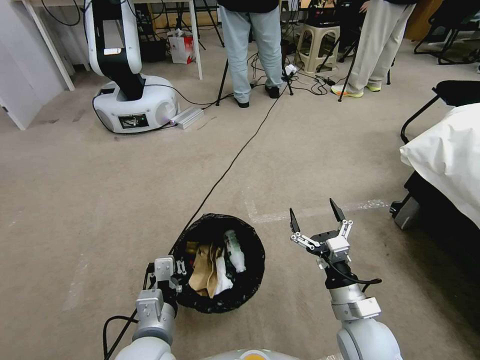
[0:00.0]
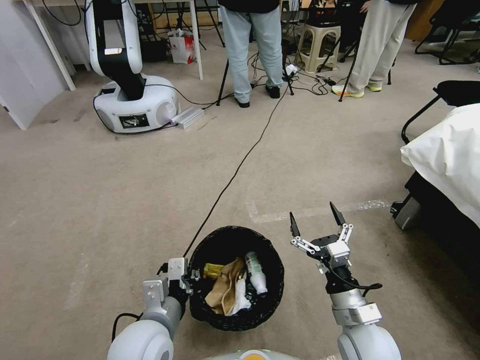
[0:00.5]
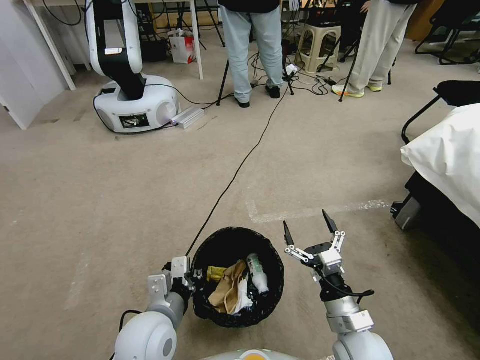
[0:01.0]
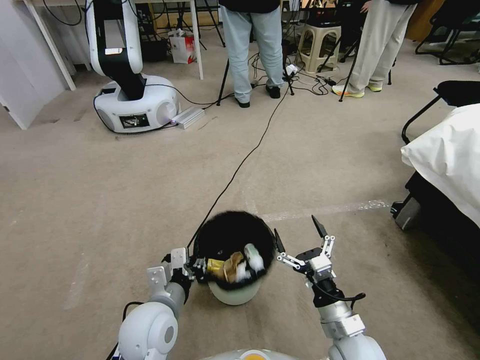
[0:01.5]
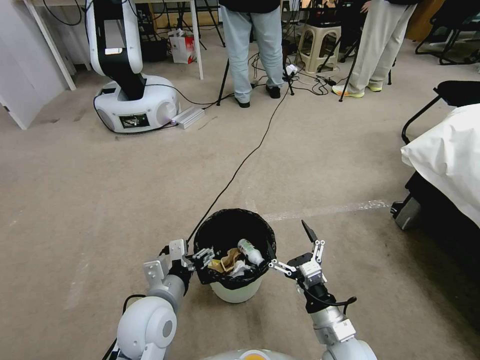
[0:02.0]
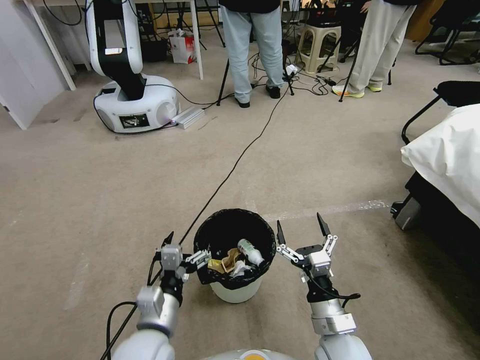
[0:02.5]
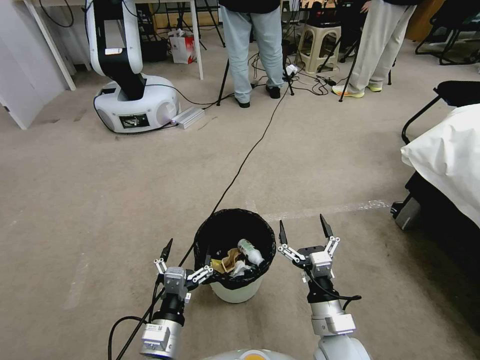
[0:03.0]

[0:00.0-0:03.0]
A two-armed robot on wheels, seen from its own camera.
Task of the whole recording: Pick up the trash bin, then pick up the garbage from the floor and place it into the trash bin.
0:00.0 to 0:01.5: The left gripper changes place by approximately 5 cm.
0:01.5 to 0:03.0: The left gripper goes some 10 cm backward and downward, and opens.

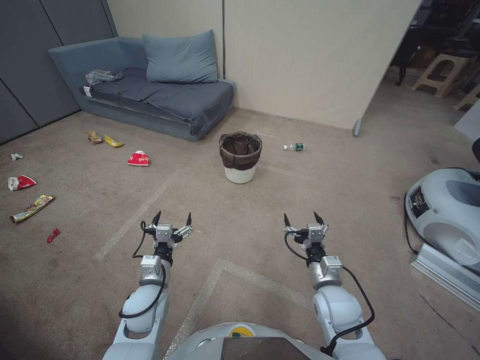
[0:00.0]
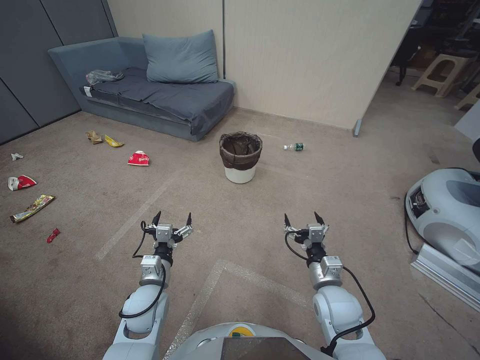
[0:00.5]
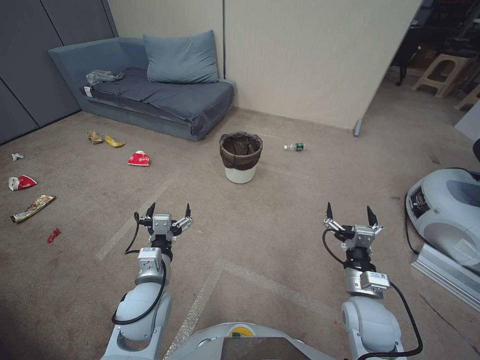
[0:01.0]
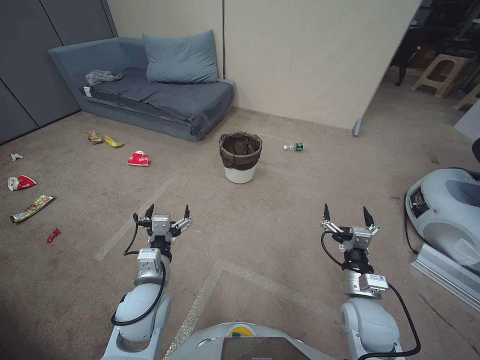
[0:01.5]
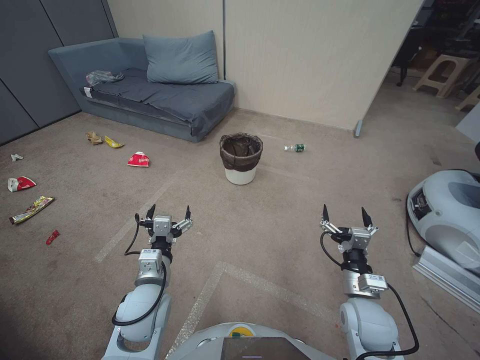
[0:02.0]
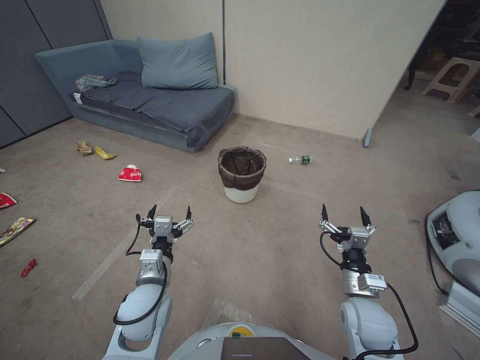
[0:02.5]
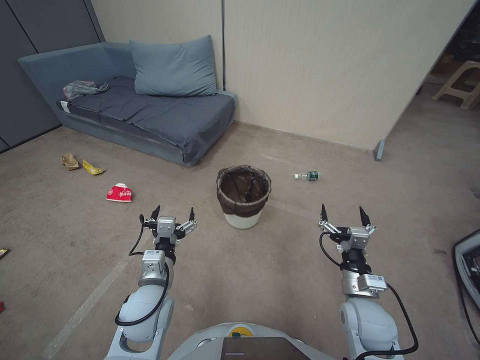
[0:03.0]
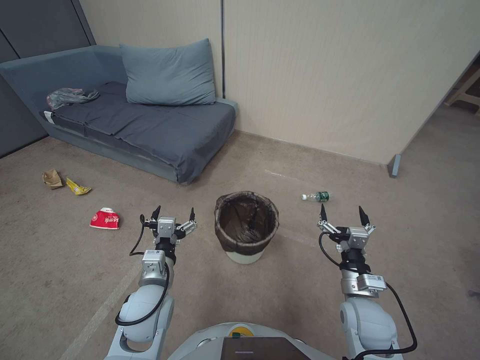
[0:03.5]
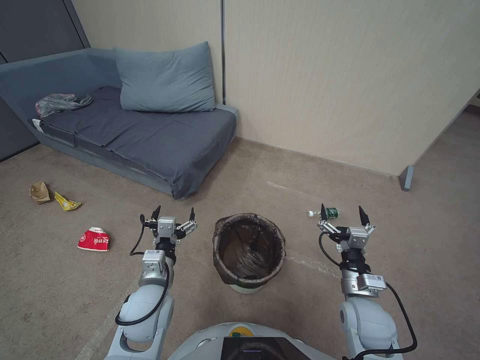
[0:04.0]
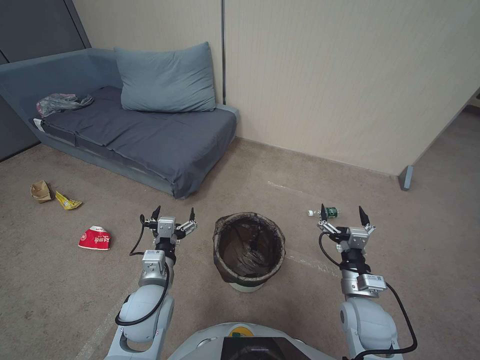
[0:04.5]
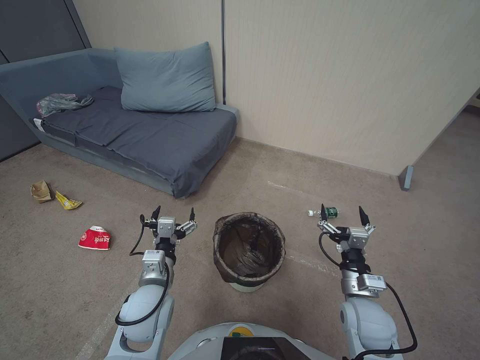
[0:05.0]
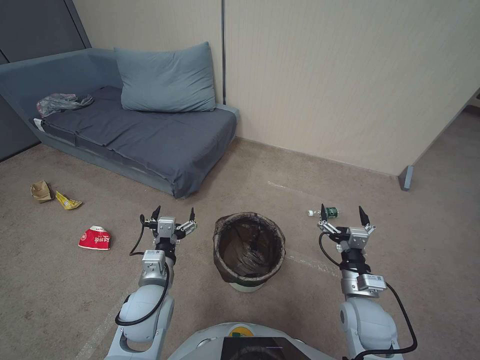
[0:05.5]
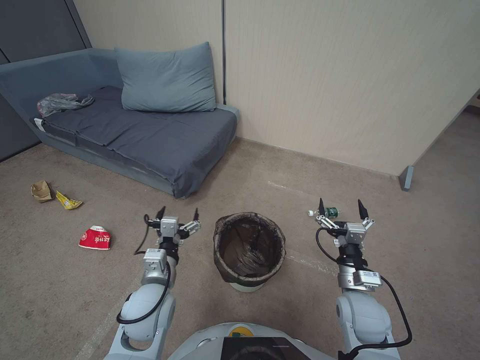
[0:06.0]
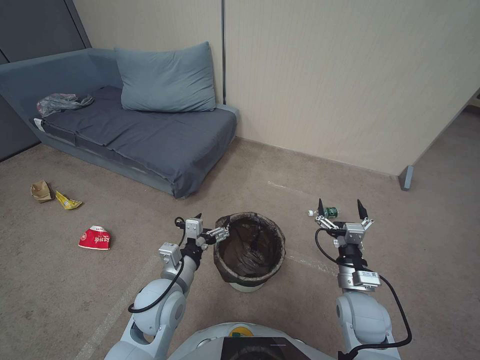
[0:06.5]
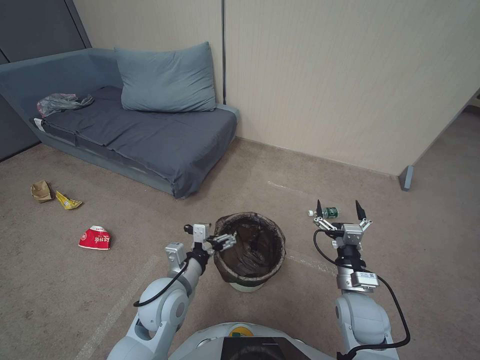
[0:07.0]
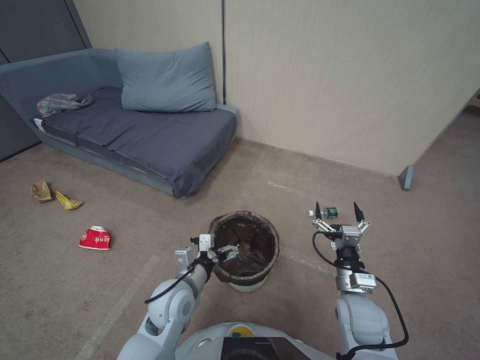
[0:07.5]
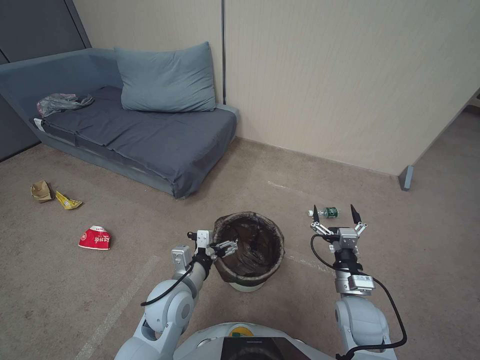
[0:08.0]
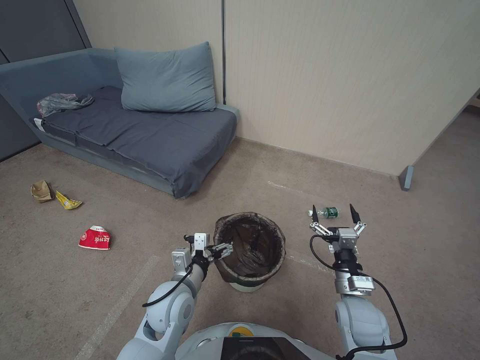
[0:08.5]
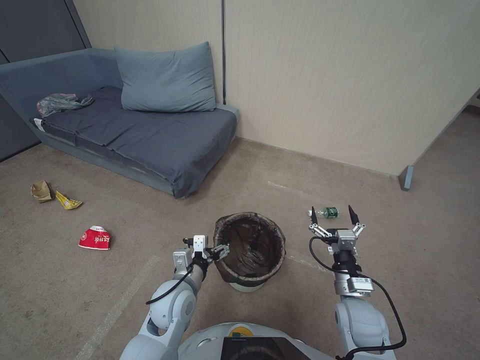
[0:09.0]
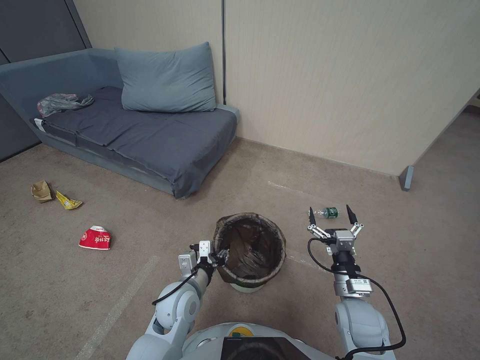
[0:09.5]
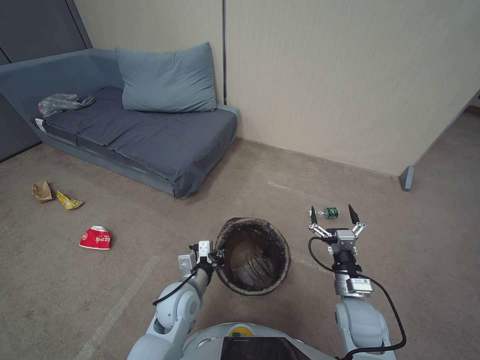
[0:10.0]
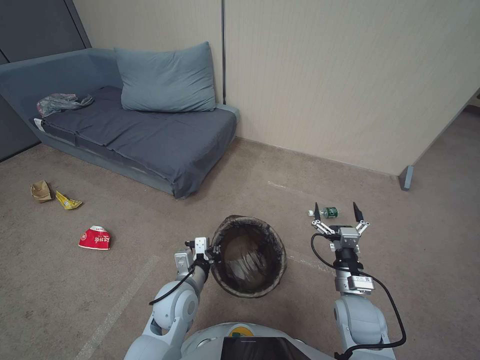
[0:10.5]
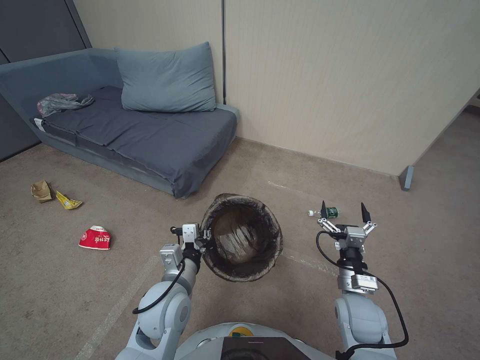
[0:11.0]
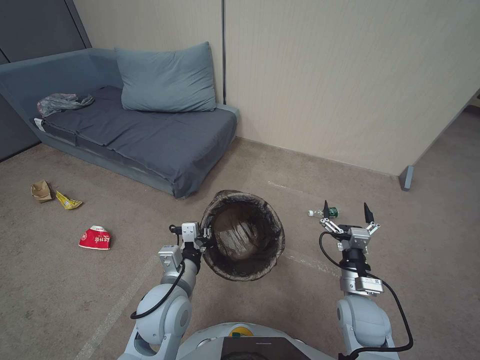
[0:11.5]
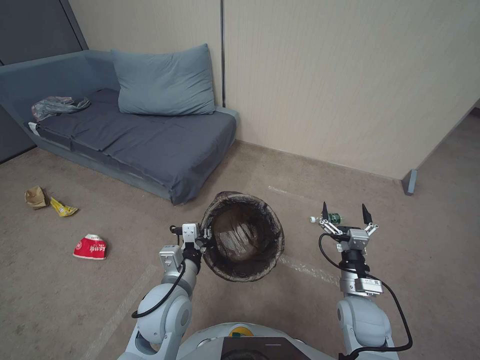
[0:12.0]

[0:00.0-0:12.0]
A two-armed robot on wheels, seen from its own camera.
Task of the whole recording: Pick up the trash bin, then pick up the garbage from the floor and place it into the trash bin.
0:04.0 to 0:06.0: The two grippers keep their place.
0:06.0 to 0:08.0: The left gripper ends up approximately 5 cm from where it was.
0:08.0 to 0:10.0: The left gripper closes its fingers.
0:10.0 to 0:12.0: The left gripper goes roughly 10 cm upward.

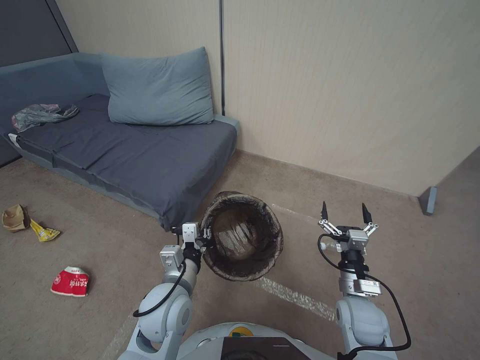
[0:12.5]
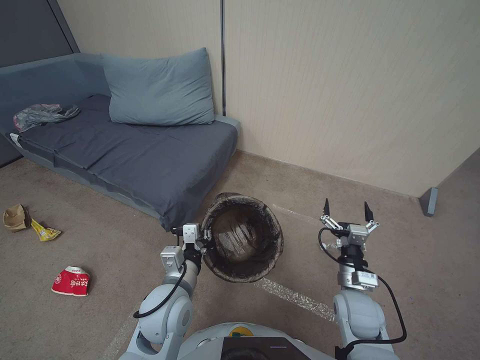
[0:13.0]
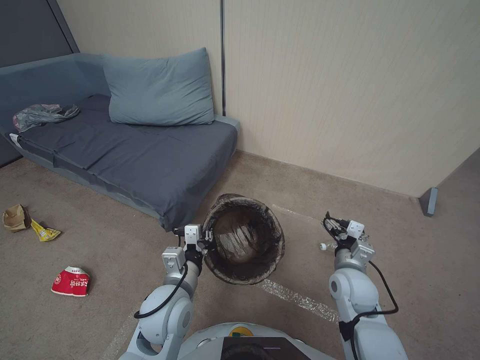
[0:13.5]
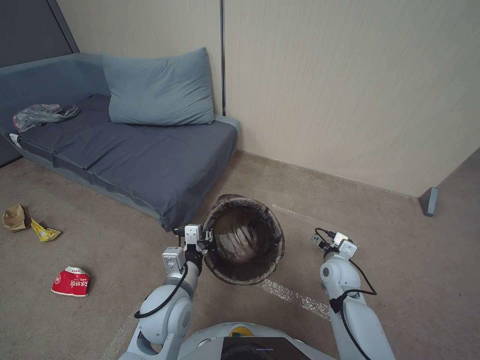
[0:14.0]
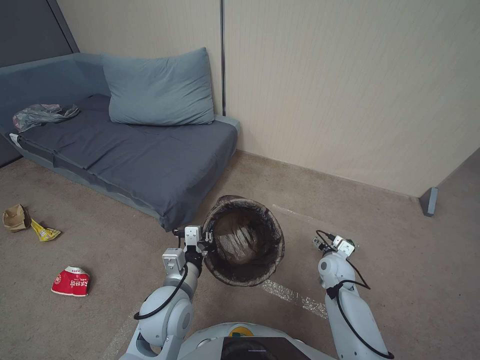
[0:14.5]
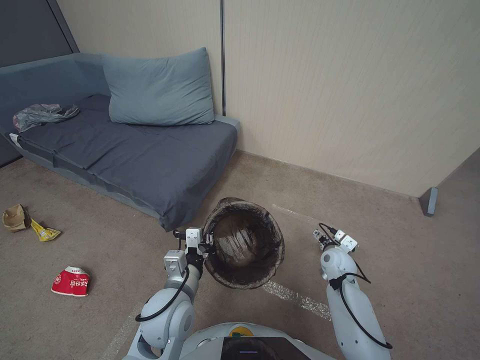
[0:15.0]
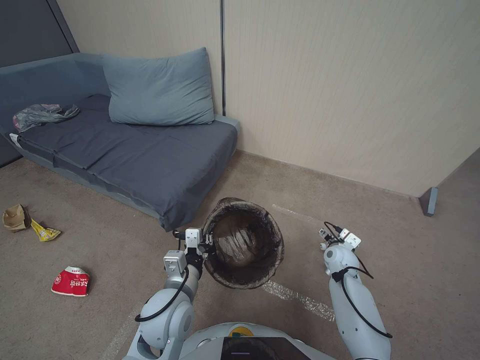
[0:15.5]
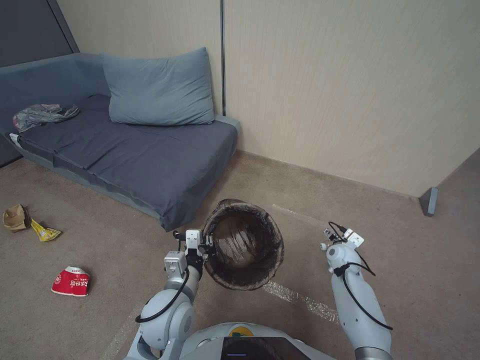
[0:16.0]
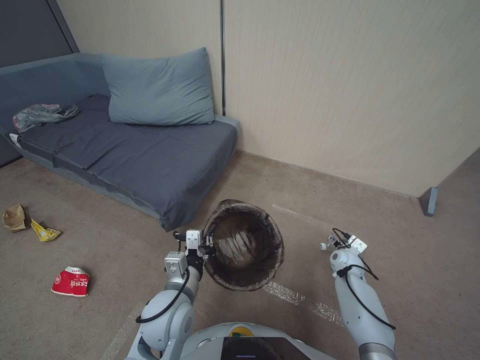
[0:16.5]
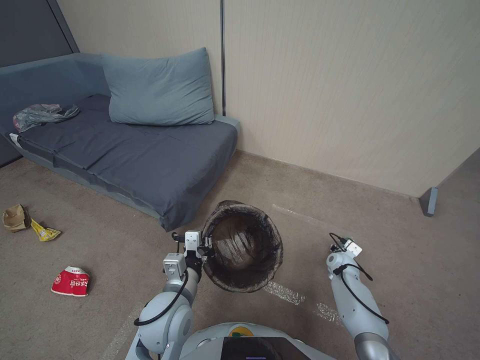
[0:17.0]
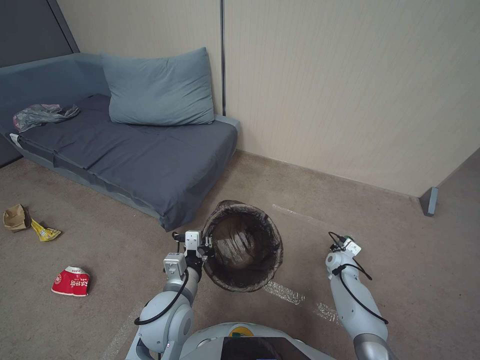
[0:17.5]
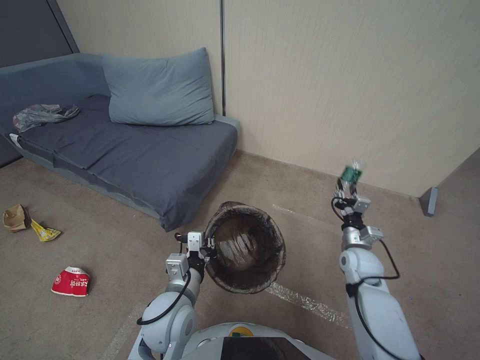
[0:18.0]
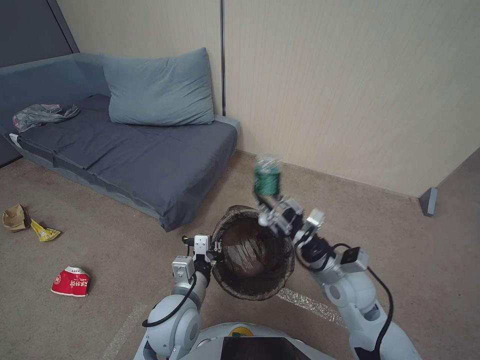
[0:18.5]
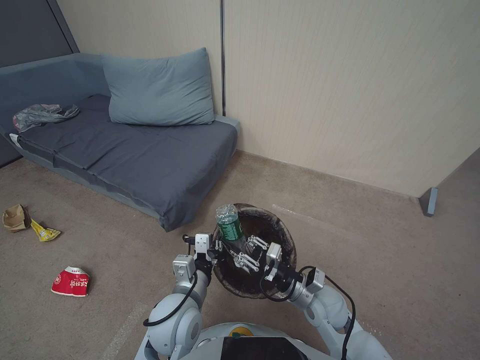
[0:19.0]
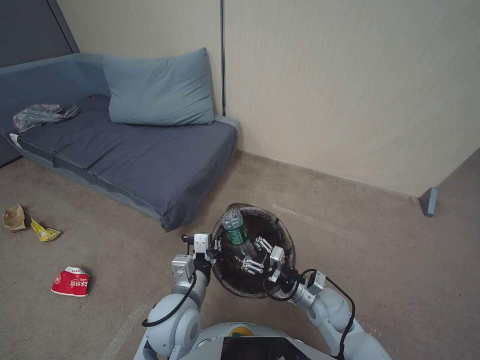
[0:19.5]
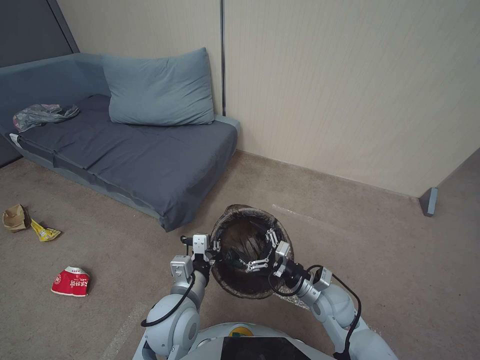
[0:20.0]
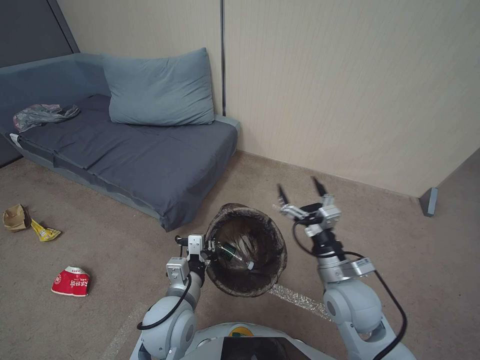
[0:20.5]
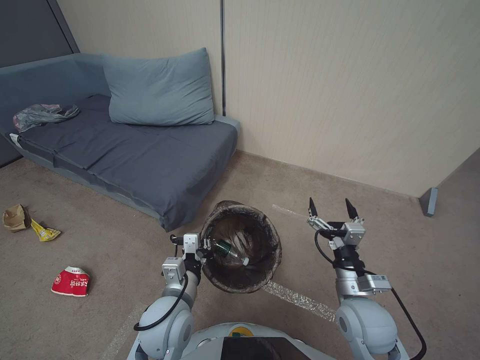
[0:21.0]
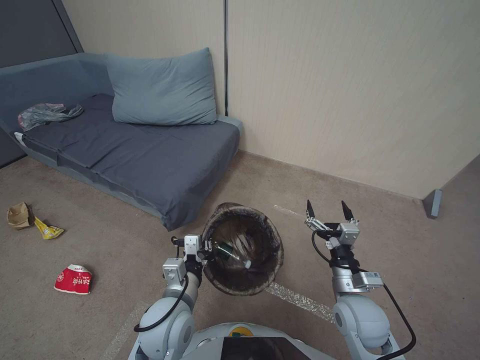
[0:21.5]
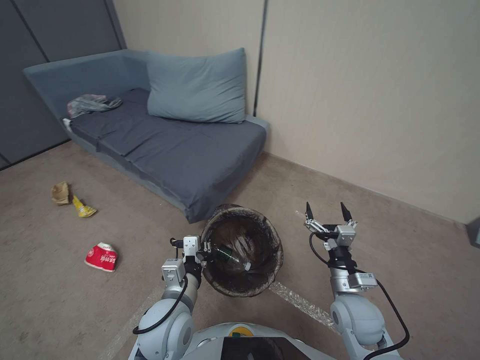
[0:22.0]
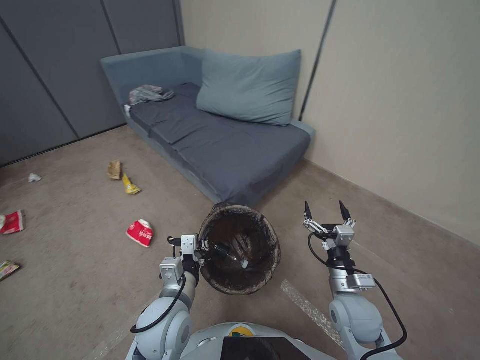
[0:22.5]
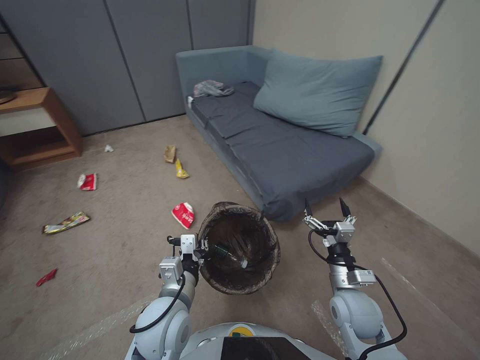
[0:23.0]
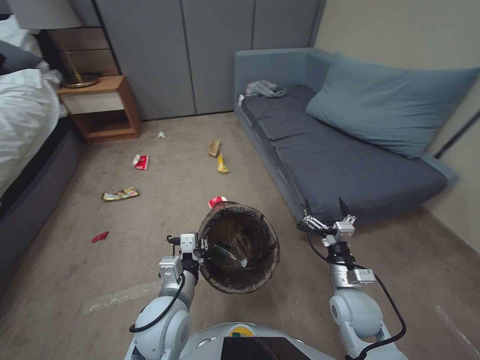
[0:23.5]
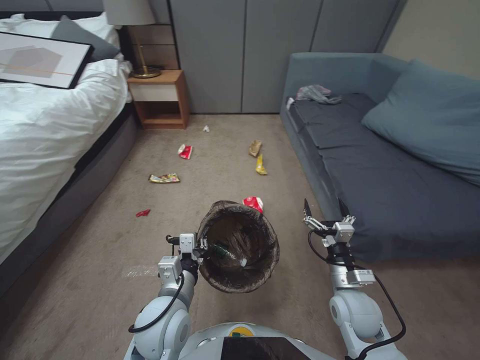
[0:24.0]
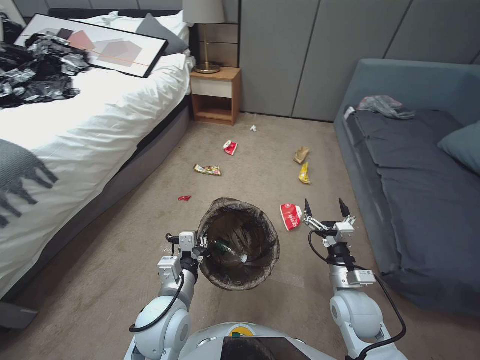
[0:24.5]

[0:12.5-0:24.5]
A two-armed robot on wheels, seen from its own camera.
Task of the whole recording: Pick up the trash bin, then pick up the garbage from the floor and place it into the trash bin.
0:12.5 to 0:14.5: The right gripper goes roughly 15 cm forward and downward.
0:14.5 to 0:16.5: The right gripper heads to the right, covering some 10 cm.
0:16.5 to 0:18.5: The right gripper travels upward, backward and to the left by some 25 cm, and closes up.
0:18.5 to 0:20.5: The right gripper goes downward and returns, approximately 10 cm each way, and opens up.
0:20.5 to 0:22.5: The right gripper heads downward, covering some 5 cm.
